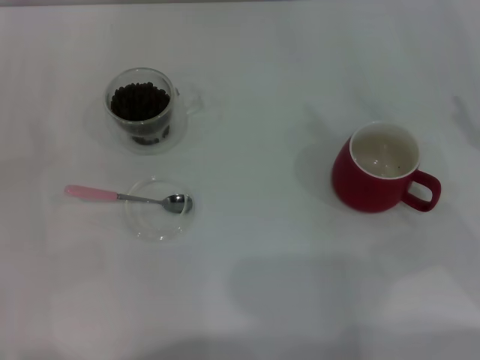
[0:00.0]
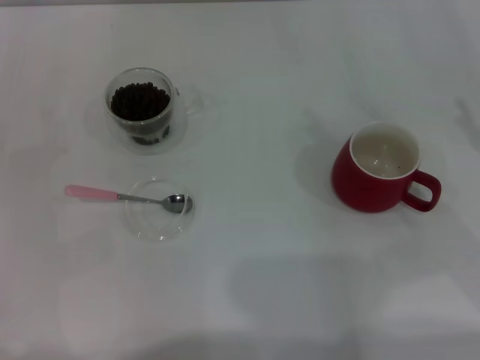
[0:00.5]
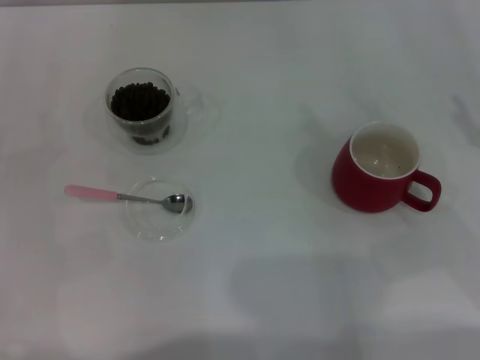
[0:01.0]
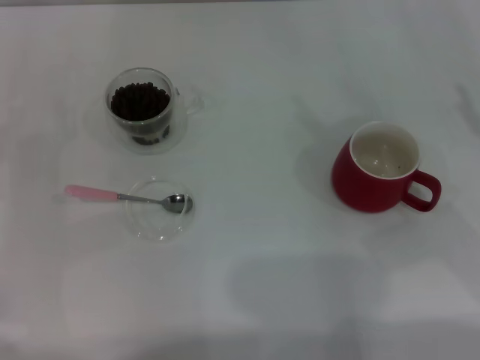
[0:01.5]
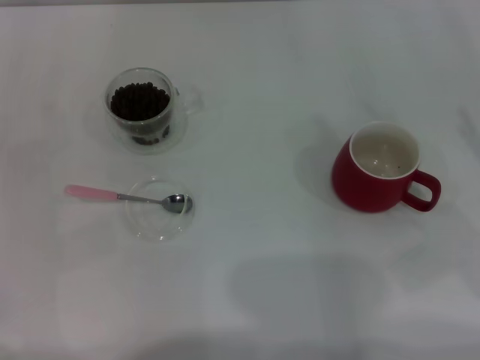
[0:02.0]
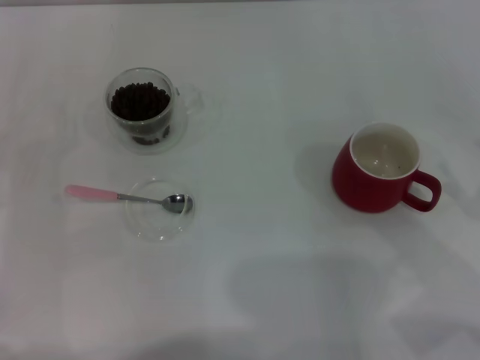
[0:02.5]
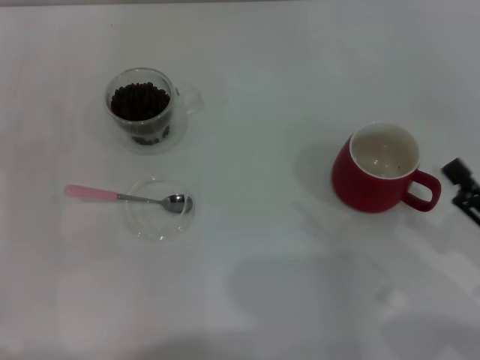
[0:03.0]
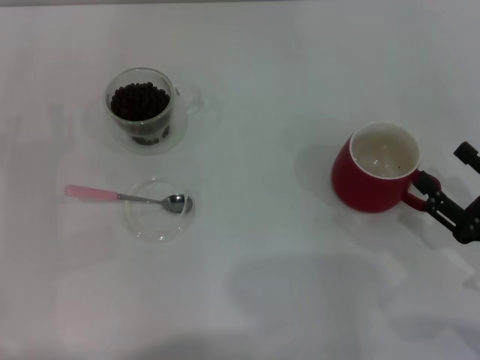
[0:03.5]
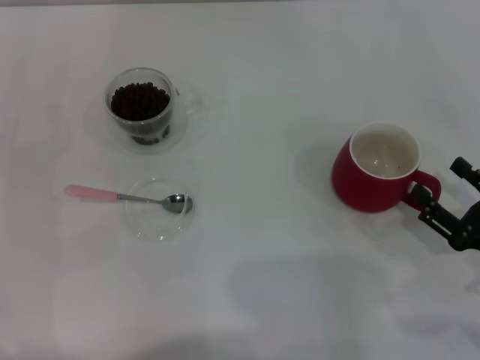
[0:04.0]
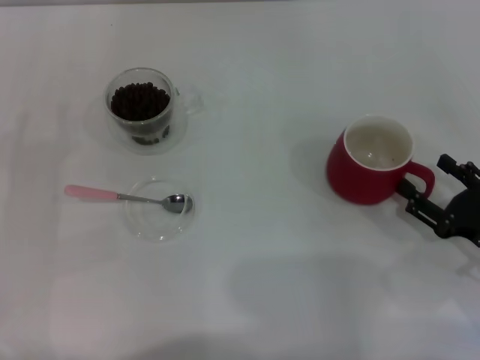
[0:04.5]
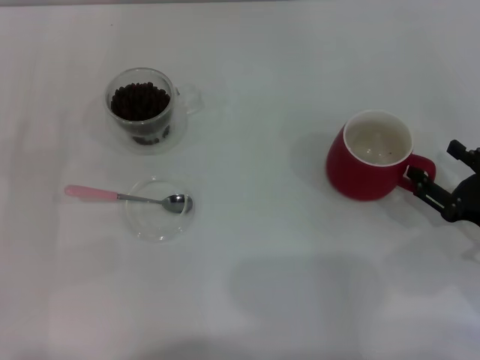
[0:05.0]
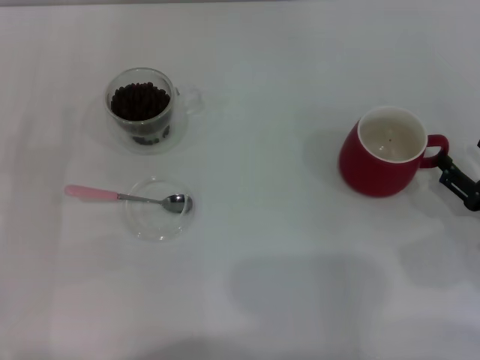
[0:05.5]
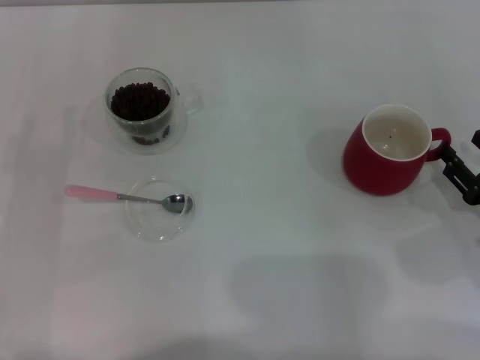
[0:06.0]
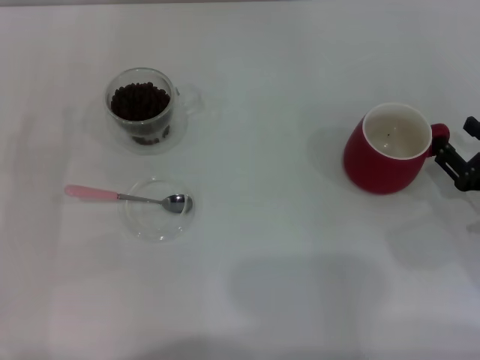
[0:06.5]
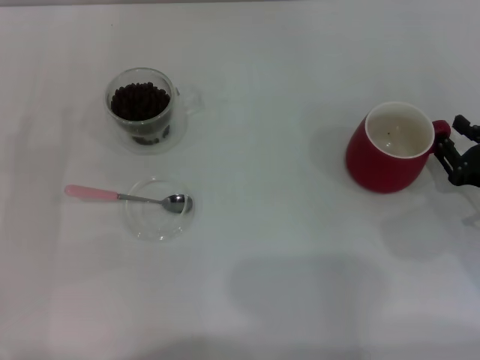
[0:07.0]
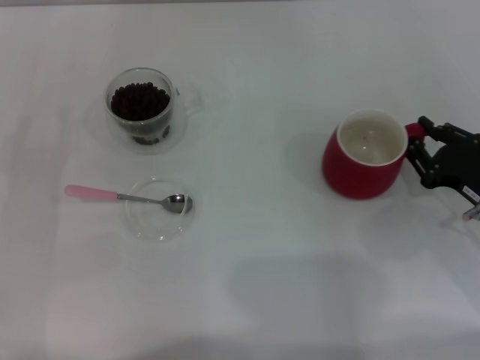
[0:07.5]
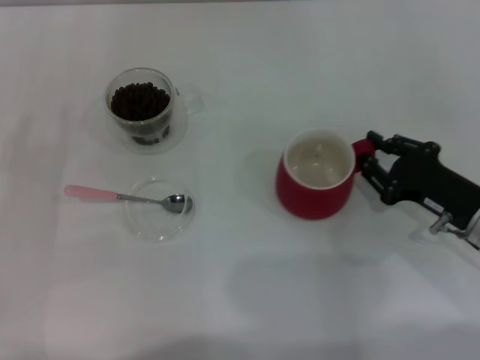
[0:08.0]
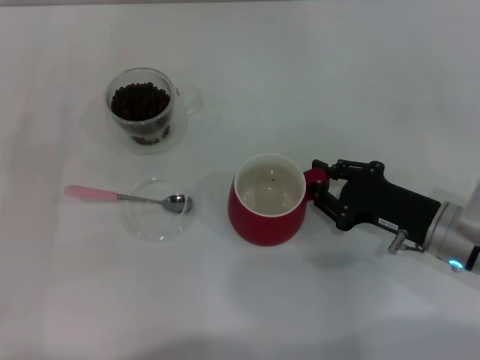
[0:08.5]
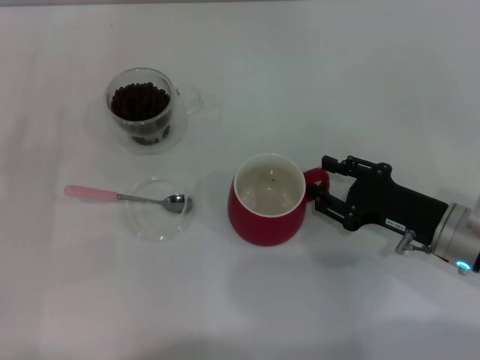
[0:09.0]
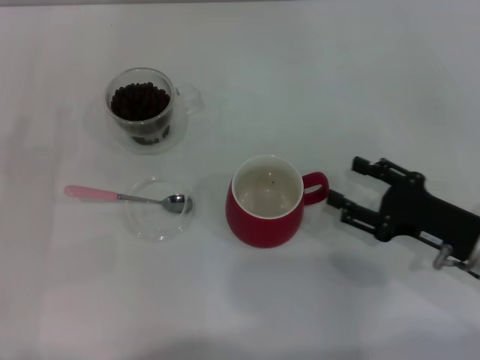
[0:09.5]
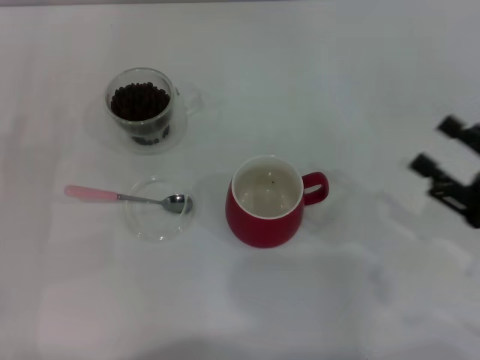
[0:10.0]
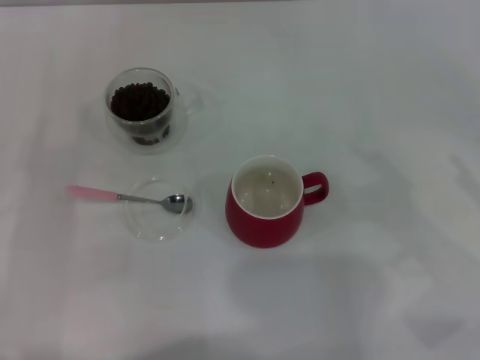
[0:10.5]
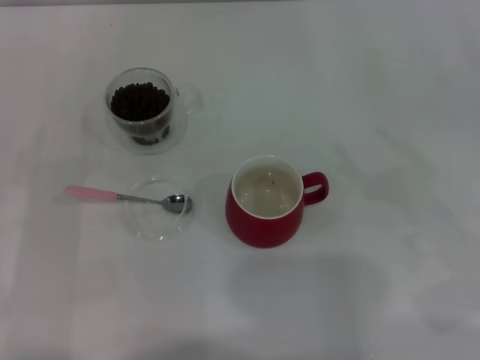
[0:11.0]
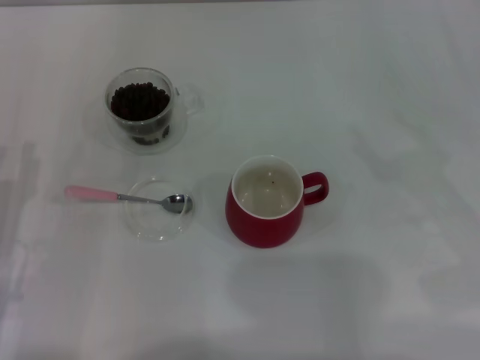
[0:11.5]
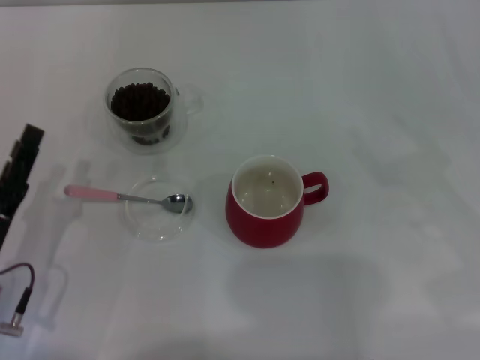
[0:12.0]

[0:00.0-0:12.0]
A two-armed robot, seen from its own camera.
Task of the whole recording: Use a pink spoon to take out the coffee beans from the glass and pour them into the red cup.
Step, 0:00.0 to 0:09.5: Move the cup to the center of view with the left gripper.
0:02.0 to 0:04.0: The right gripper shifts about 10 cm downward and backward.
0:04.0 to 0:06.0: The grippers move only a little.
0:06.0 to 0:08.0: The right gripper moves to the left, some 5 cm, and closes up.
0:08.0 to 0:10.0: The right gripper shifts roughly 5 cm backward, and opens up.
0:10.0 to 0:12.0: The right gripper travels to the right by about 5 cm; the left gripper goes roughly 15 cm to the right, backward and downward.

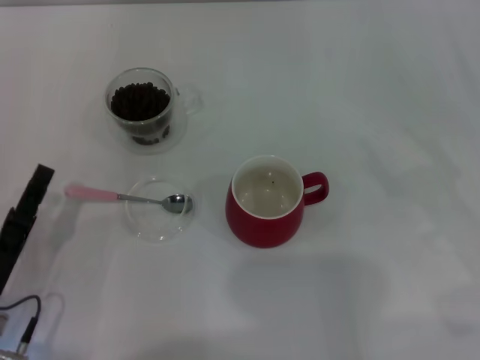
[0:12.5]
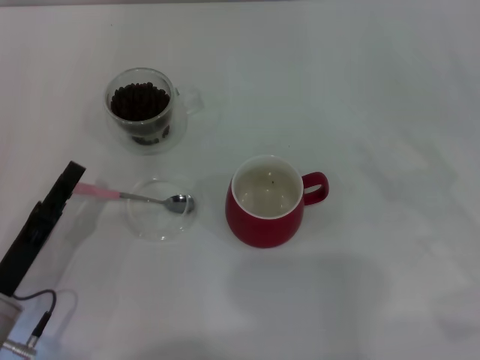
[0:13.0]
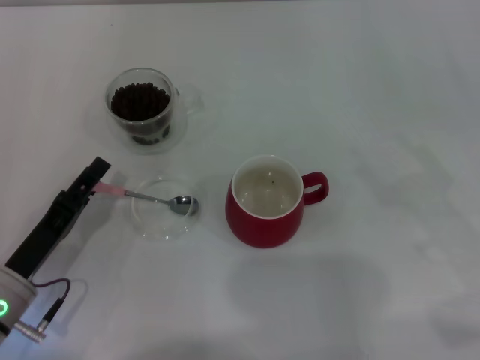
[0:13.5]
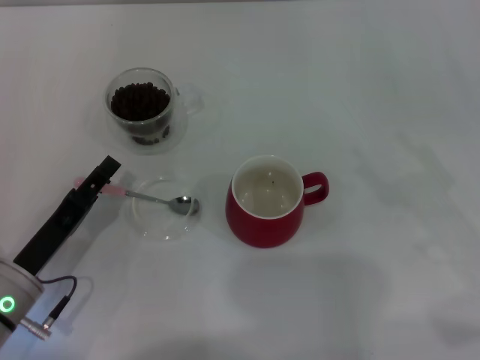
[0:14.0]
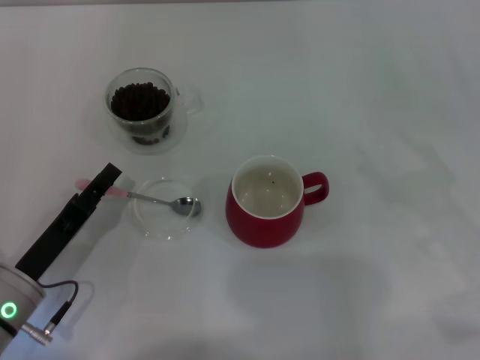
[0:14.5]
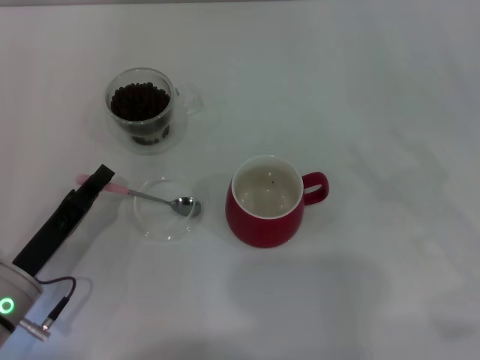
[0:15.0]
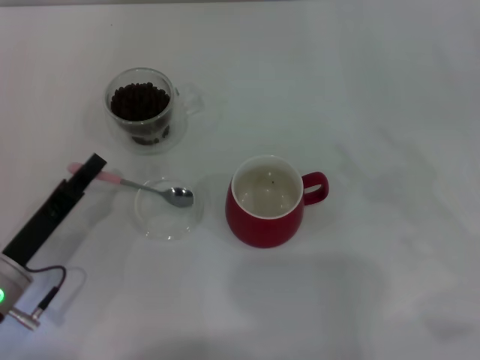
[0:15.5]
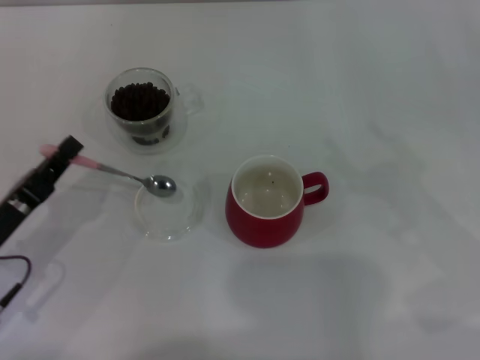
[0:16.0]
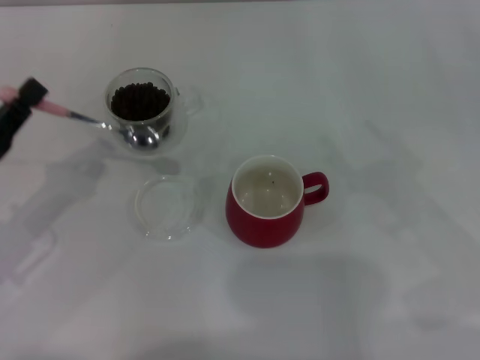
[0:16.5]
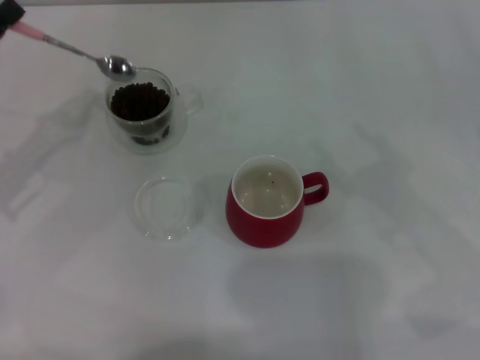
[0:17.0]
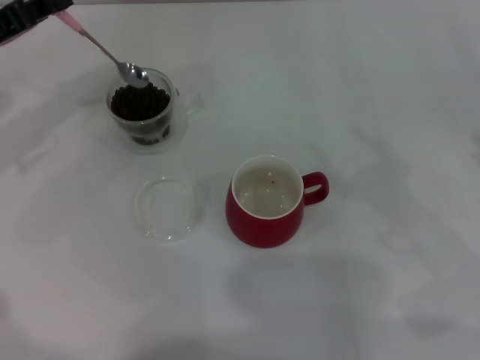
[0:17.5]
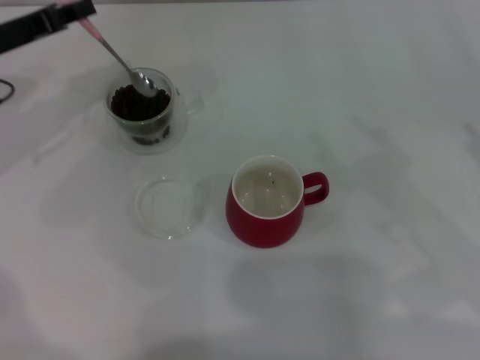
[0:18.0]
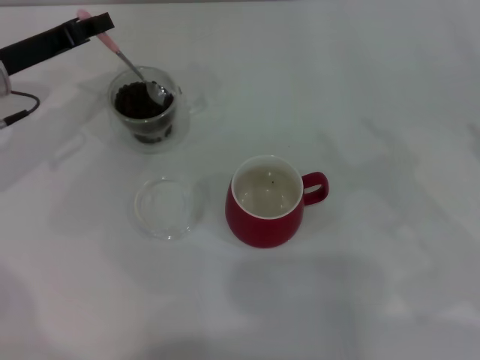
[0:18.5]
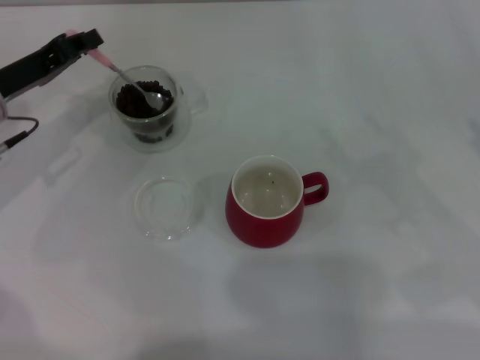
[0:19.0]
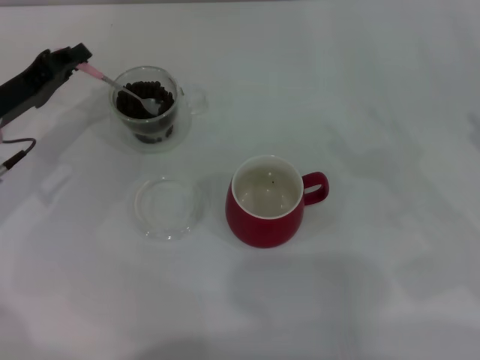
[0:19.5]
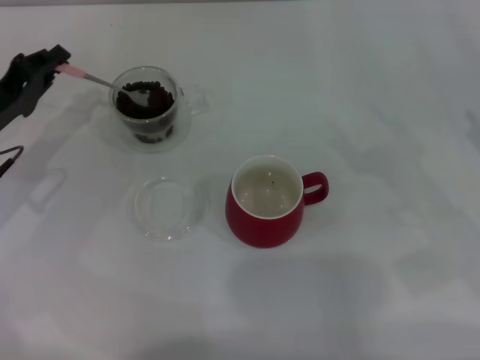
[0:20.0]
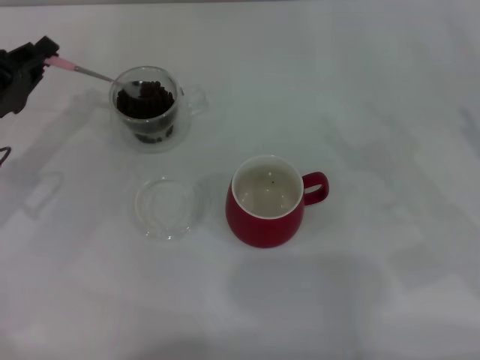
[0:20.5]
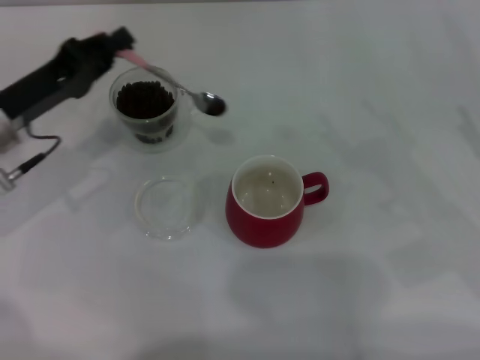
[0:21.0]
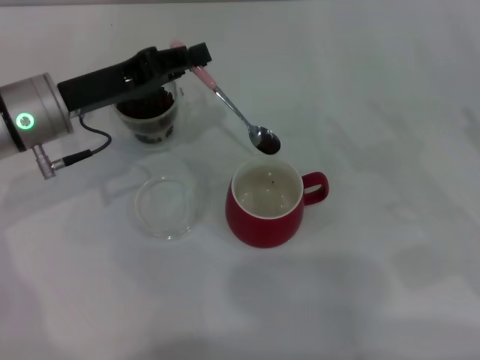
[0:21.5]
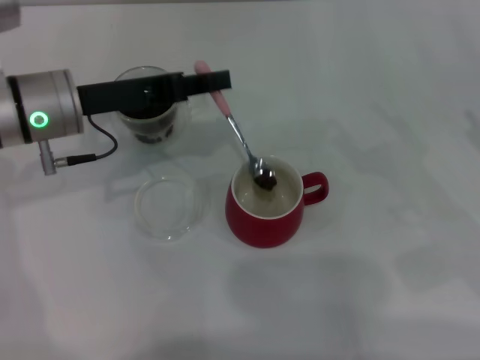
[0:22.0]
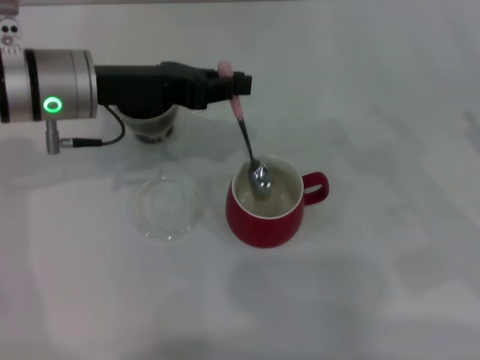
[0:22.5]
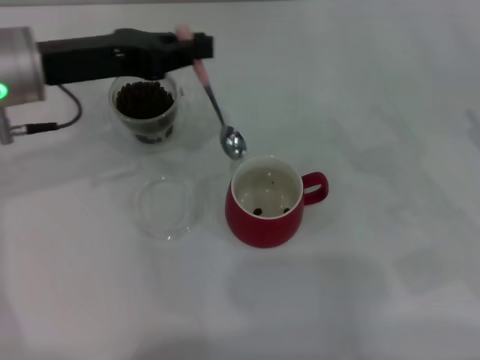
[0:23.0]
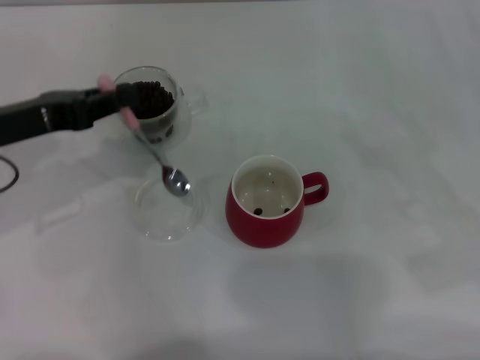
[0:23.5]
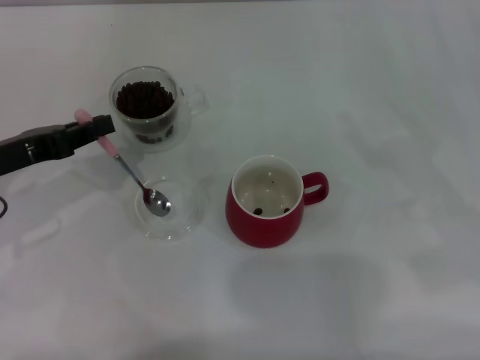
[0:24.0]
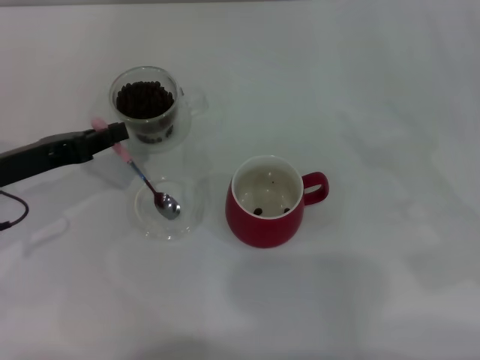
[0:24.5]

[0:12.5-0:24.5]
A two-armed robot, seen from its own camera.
Task of the whole recording: Use a pink spoon to take out the coffee beans from the glass and pour them into the red cup.
Step, 0:12.5 to 0:16.0: Pick up the spoon with the right gripper.
0:12.5 to 0:14.5: There are only small adjustments of the grippers.
0:14.5 to 0:16.5: The left gripper shifts roughly 10 cm upward and to the left, and closes up.
0:16.5 to 0:18.5: The left gripper is displaced forward by roughly 15 cm.
0:18.5 to 0:20.5: The left gripper goes roughly 5 cm backward.
0:20.5 to 0:22.5: The left gripper heads to the right and upward, covering approximately 15 cm.
0:22.5 to 0:24.5: The left gripper heads to the left, downward and backward, covering approximately 15 cm.

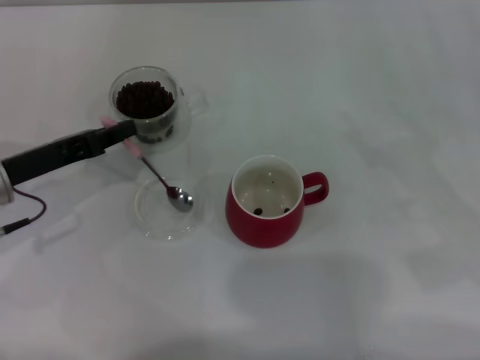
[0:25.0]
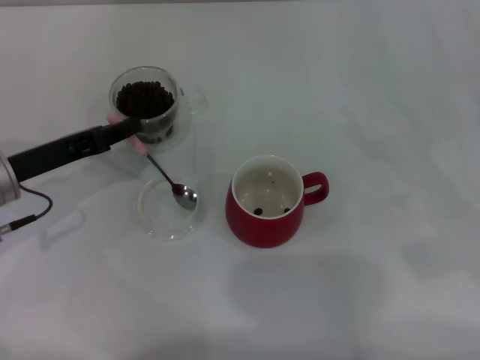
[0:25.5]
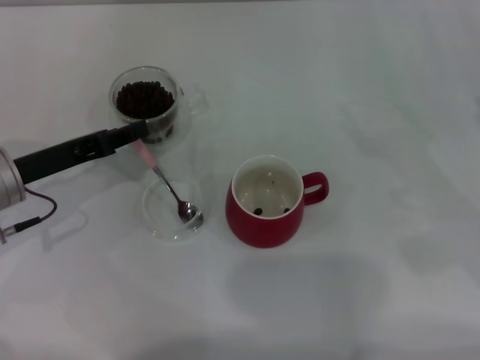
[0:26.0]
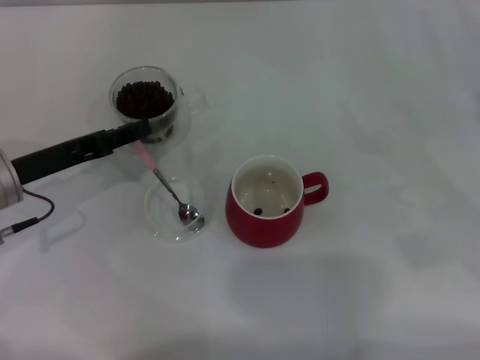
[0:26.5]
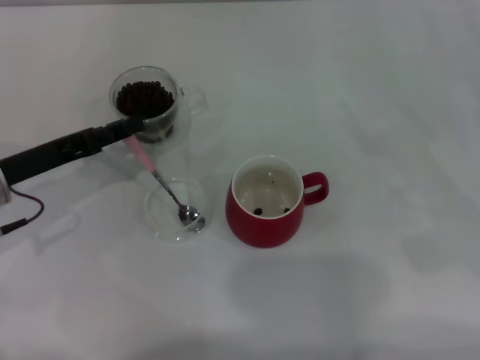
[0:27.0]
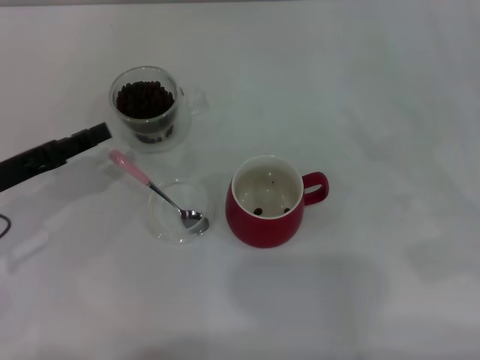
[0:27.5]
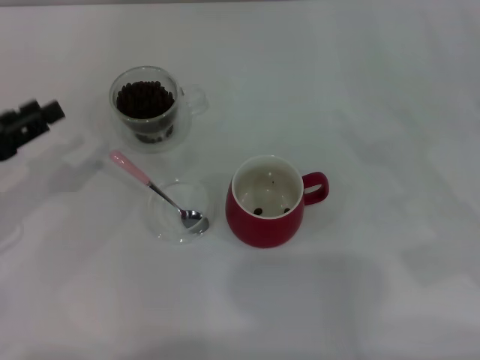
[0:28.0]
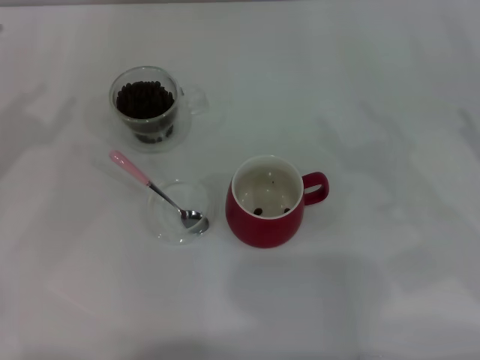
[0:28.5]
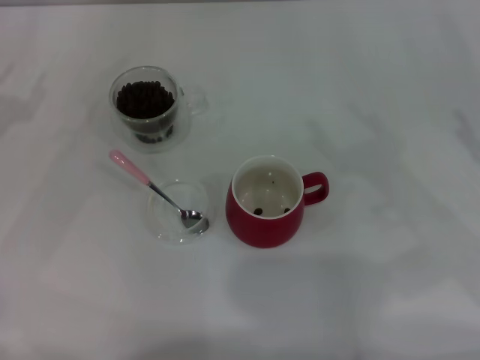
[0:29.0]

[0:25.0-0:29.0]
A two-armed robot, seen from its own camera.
Task of the whole recording: Use a pink spoon to take out the coffee beans from the glass and pour them into the red cup.
Step, 0:25.0 to 0:27.5: Place the spoon back in its original place with the right gripper.
0:25.0 to 0:27.0: The left gripper opens.
0:27.0 to 0:29.0: The left gripper shifts about 10 cm to the left.
